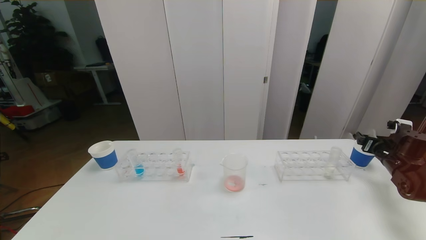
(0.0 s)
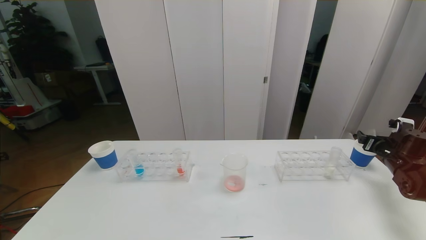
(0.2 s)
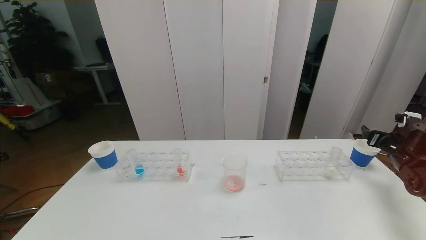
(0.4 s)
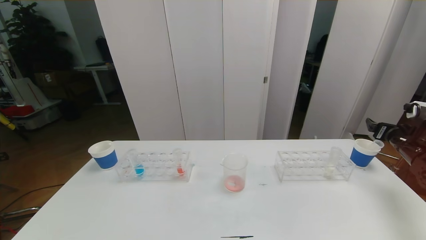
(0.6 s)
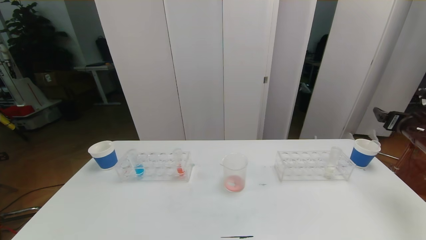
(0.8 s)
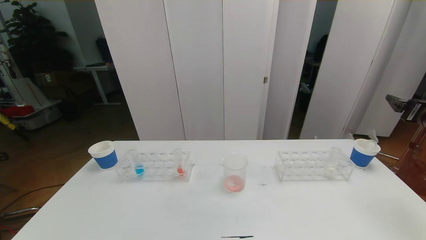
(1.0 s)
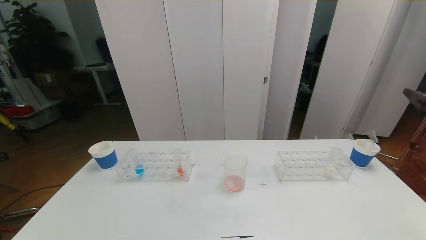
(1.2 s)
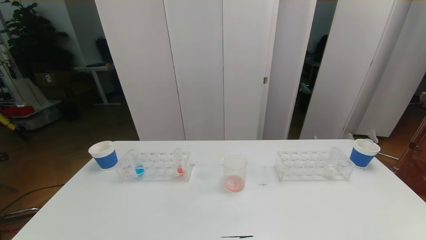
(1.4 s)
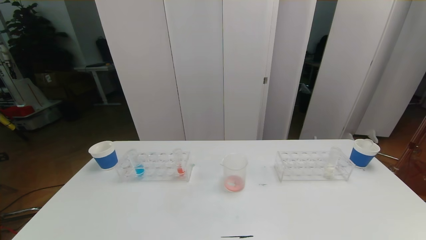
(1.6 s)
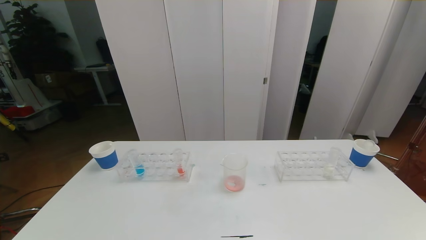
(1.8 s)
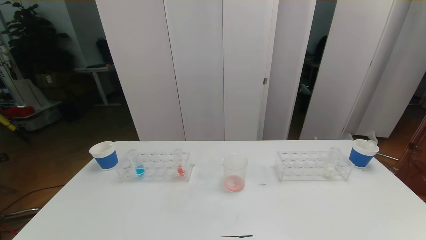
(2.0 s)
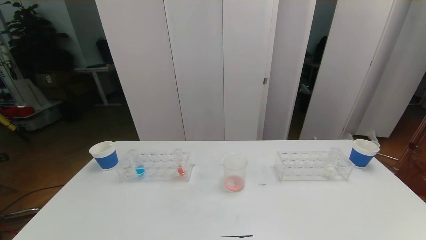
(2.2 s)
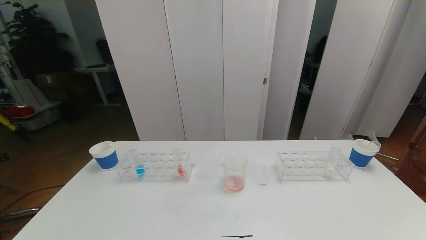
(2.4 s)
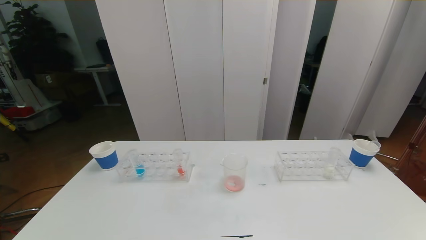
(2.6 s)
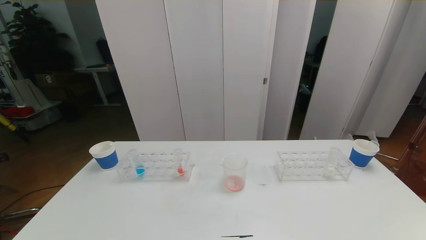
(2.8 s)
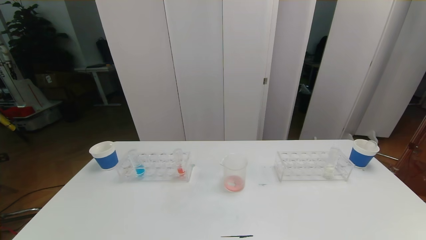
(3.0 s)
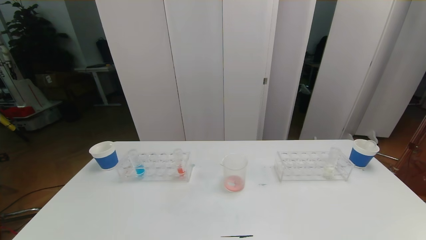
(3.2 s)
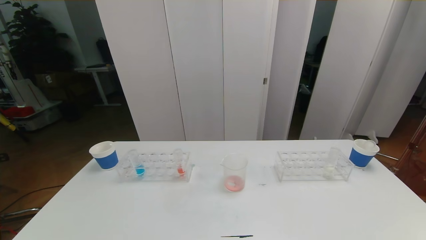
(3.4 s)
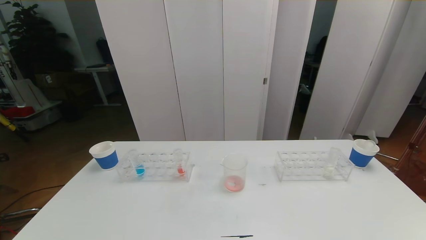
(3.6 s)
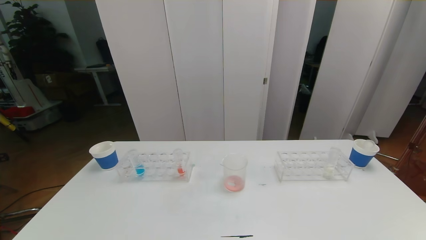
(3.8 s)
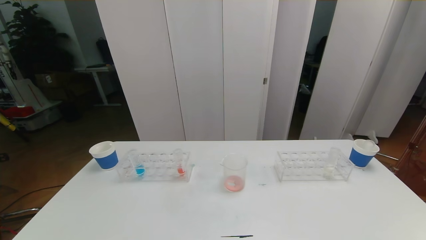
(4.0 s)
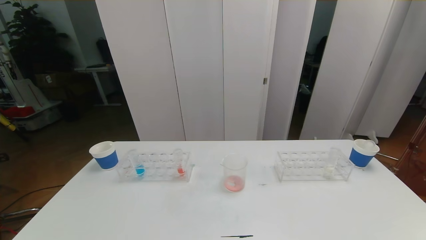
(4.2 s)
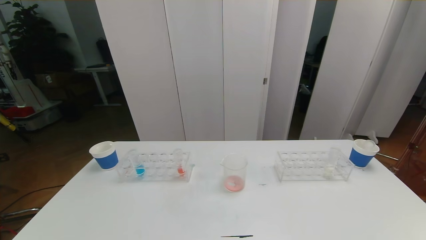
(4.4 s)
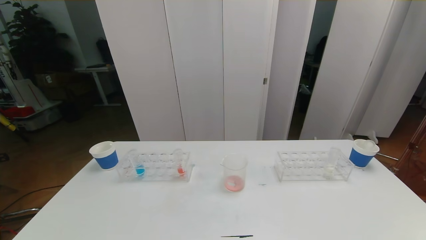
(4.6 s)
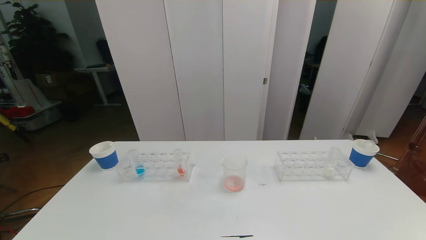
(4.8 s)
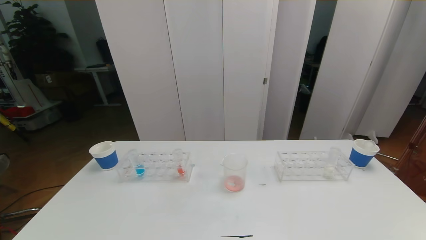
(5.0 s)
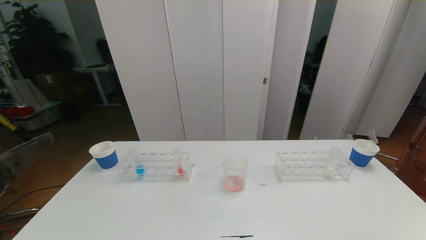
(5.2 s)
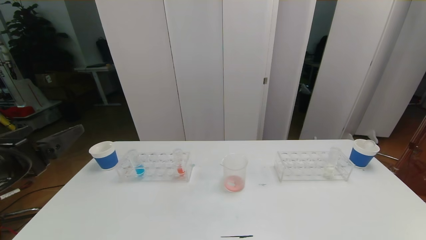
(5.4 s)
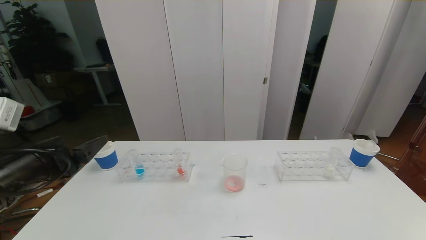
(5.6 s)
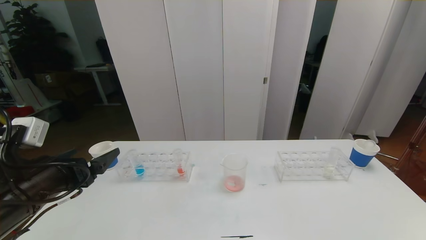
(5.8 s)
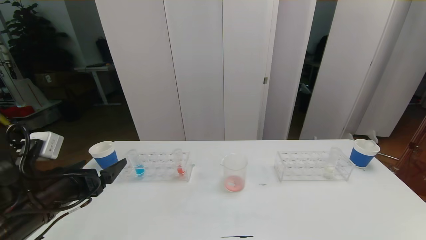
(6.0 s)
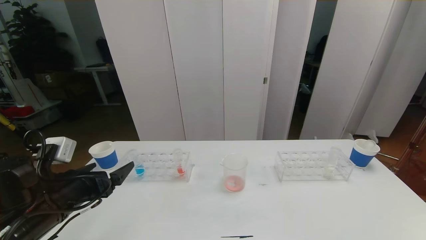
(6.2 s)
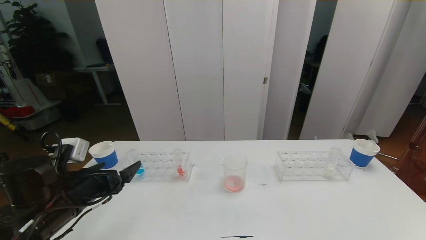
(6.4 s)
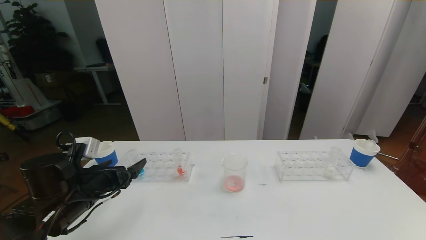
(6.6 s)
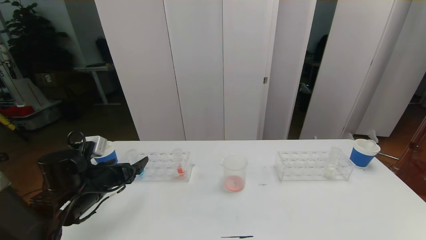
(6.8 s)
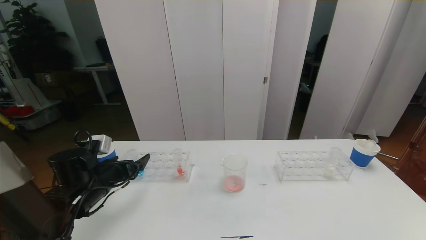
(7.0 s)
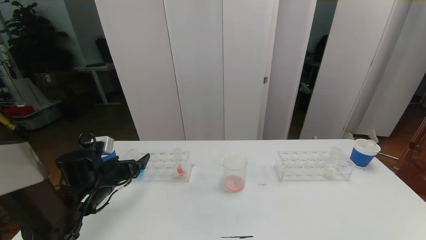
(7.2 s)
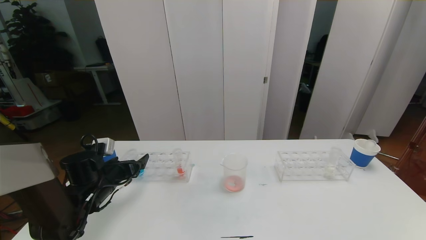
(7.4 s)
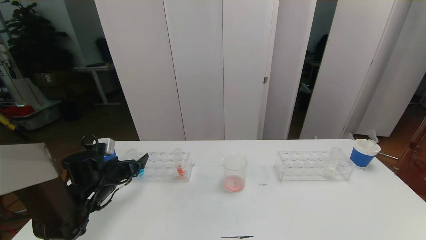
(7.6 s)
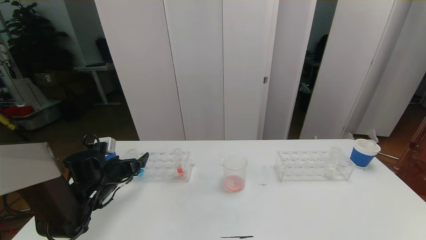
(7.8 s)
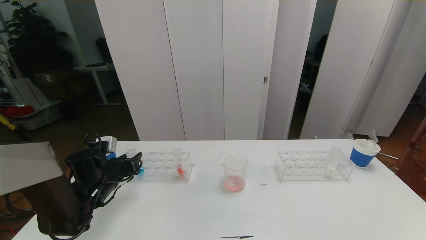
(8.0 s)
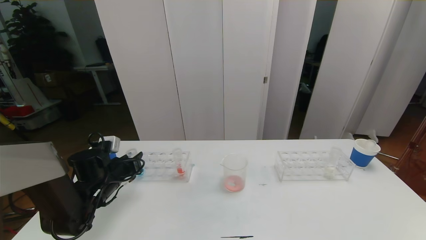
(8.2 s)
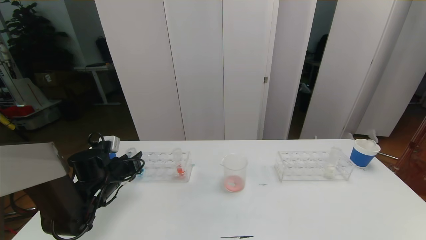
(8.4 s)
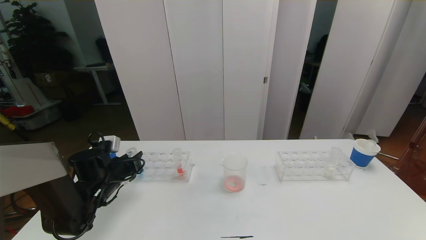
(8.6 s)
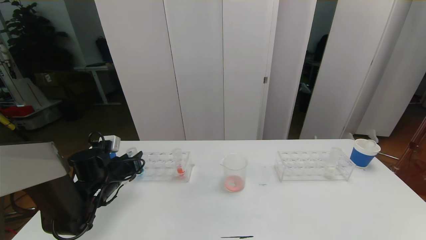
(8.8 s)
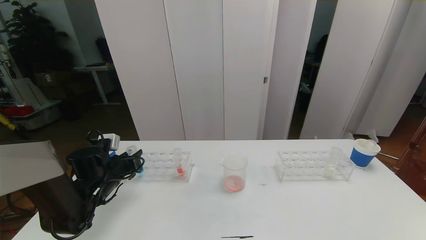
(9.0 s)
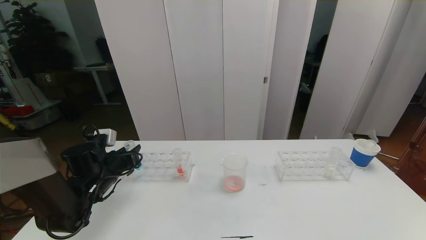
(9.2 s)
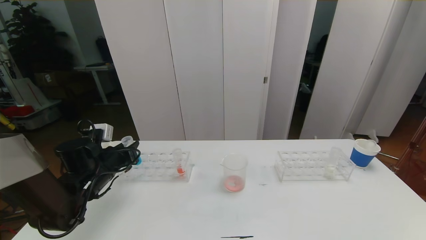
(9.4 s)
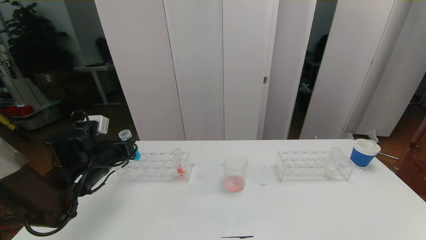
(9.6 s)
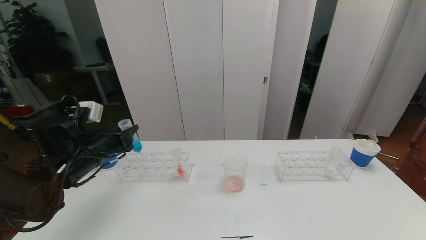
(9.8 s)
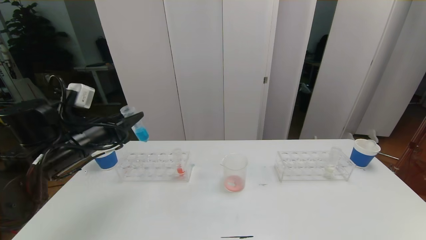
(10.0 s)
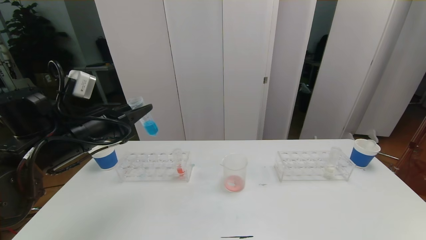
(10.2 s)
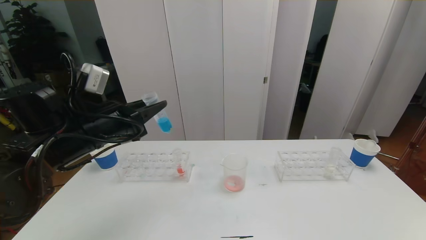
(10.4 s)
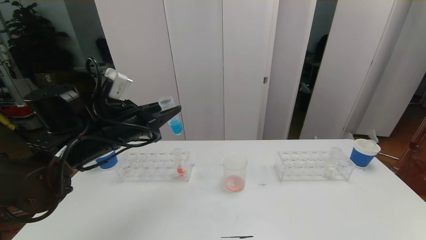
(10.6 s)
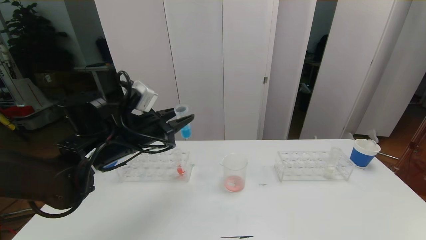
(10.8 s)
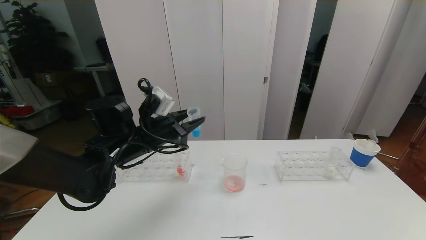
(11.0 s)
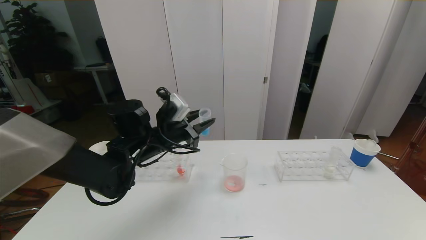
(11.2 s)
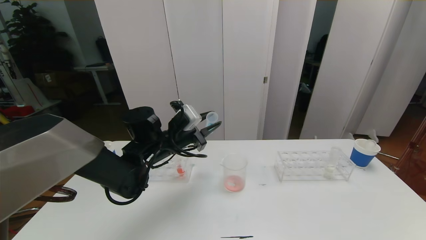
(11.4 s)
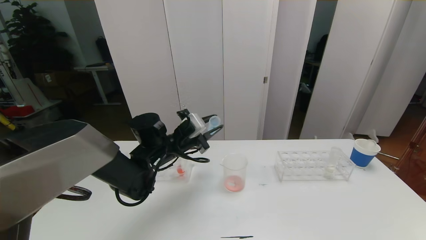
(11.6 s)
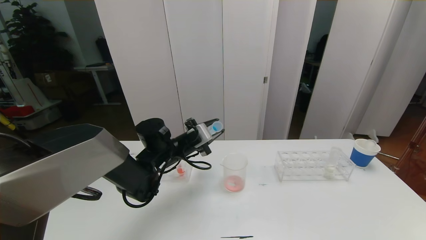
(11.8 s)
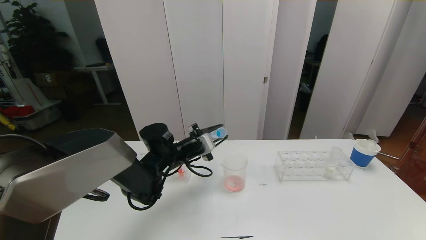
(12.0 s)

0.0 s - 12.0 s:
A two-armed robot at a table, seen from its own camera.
Task of the whole recording: pick up the test tube with red pigment the test tube with blue pigment and the test tube with white pigment by grippers and pour them into the beaker.
Step, 0.0 s - 4.0 s: Pour the red reagent into the graduated cylinder and place the test tube into the paper cup.
0.0 s - 1.6 s: The right gripper travels backward and upward by about 35 cm.
4.4 s - 6.0 s: The left gripper moves forward, approximately 25 cm.
6.0 s - 7.6 s: The left gripper travels forward and downward by some 15 cm.
7.6 s - 9.0 s: The left gripper closes its fingers.
9.0 s - 10.4 s: The left gripper travels upward by some 15 cm.
10.4 s - 12.0 s: The left gripper goes roughly 20 cm downward, to the right and forward.

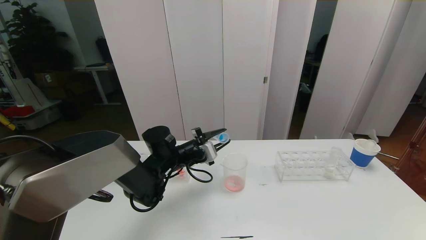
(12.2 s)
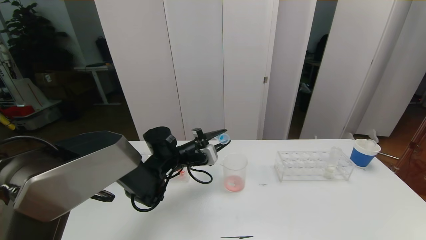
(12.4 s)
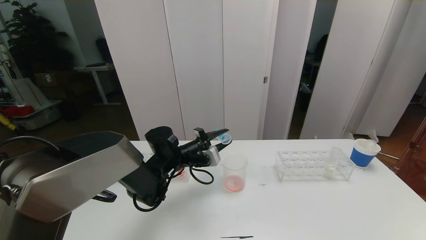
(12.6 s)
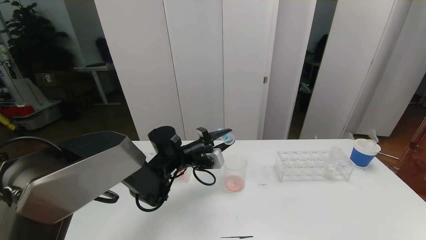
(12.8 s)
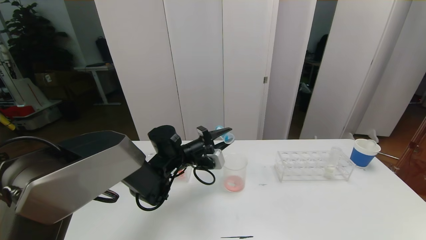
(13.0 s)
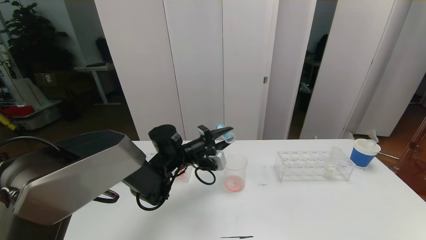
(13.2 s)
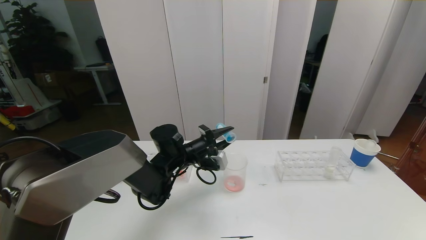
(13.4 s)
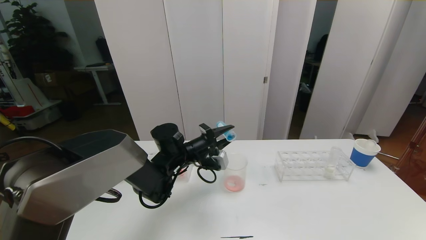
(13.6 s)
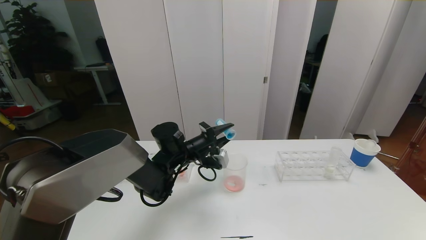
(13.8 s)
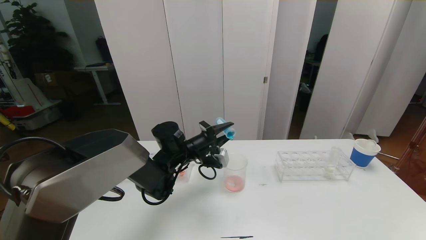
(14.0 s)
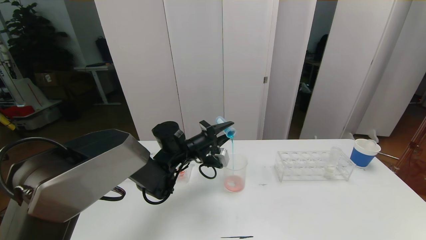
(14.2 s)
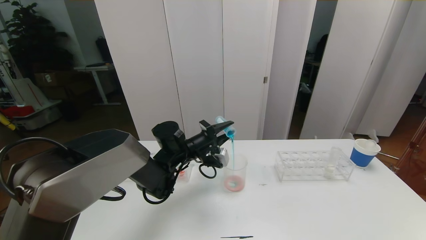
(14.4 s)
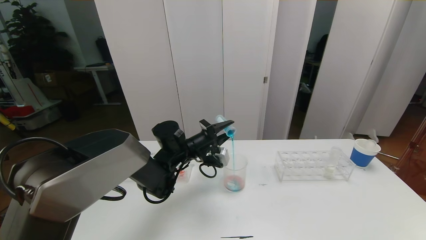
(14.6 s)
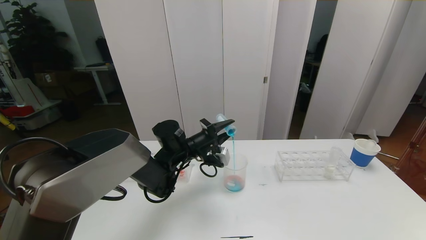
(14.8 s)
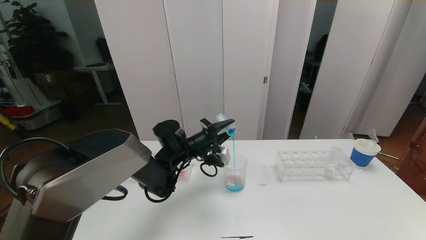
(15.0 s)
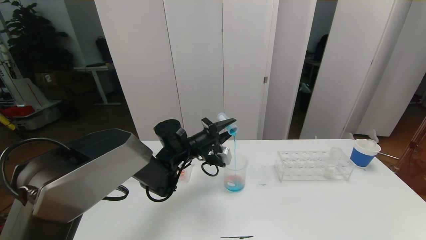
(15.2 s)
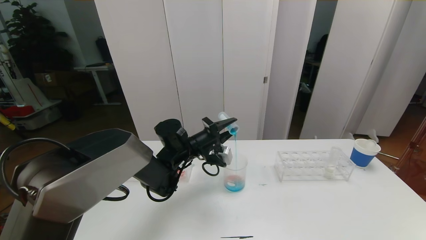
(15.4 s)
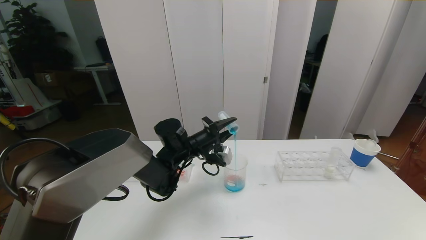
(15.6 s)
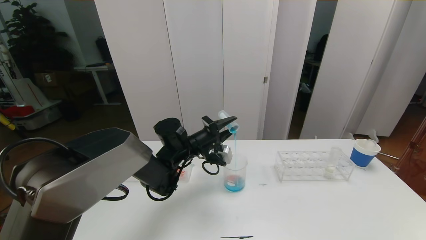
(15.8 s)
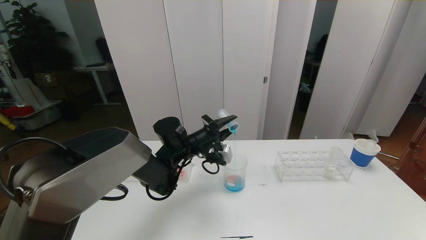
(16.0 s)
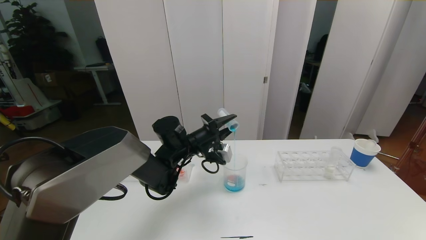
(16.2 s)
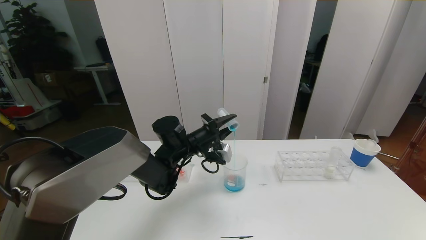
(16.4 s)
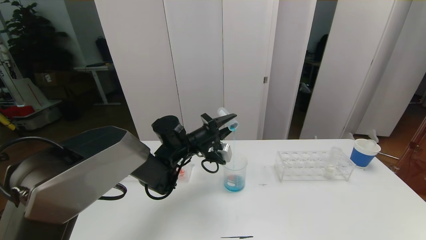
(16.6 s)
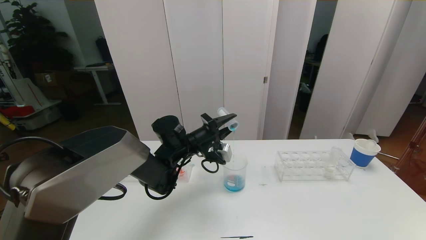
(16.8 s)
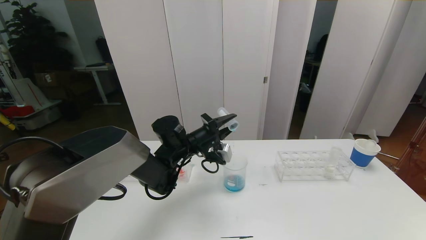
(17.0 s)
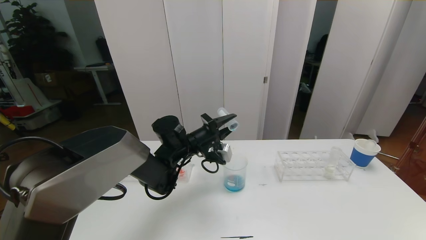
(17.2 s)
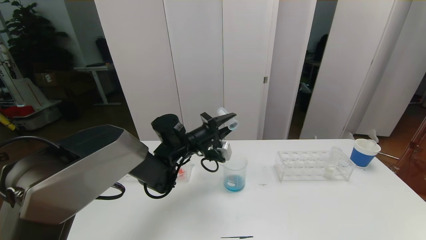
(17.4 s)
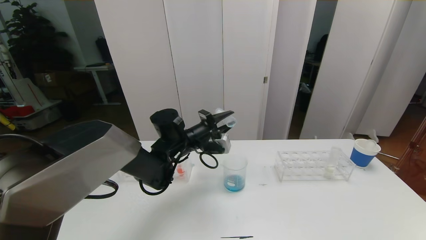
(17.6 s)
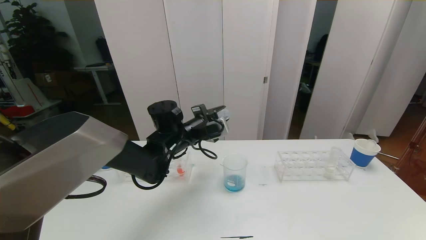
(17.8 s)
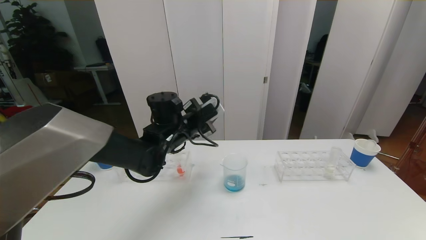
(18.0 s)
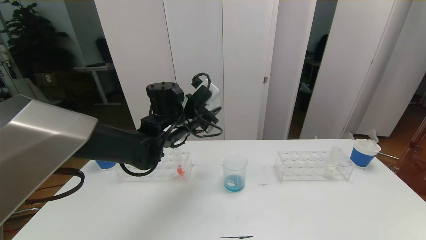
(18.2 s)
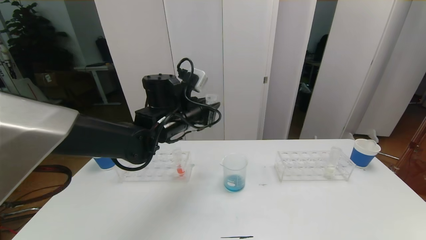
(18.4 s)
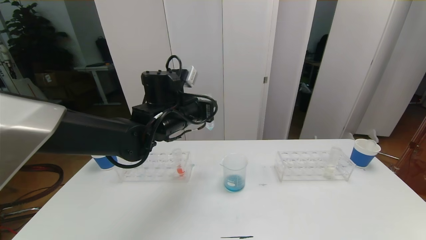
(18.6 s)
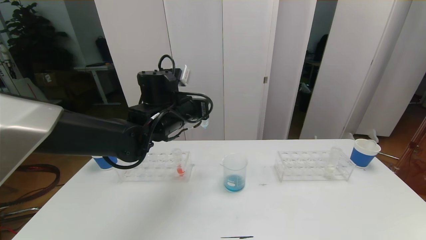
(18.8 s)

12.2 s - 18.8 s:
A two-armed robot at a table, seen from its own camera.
Task of the whole recording: pick up the test tube with red pigment the test tube with blue pigment and the test tube with white pigment by grippers and pour them into the beaker.
13.8 s - 15.4 s: The grippers move only a little.
15.4 s - 17.2 s: The two grippers keep their place.
17.2 s - 18.8 s: The left gripper travels upward by about 10 cm.
